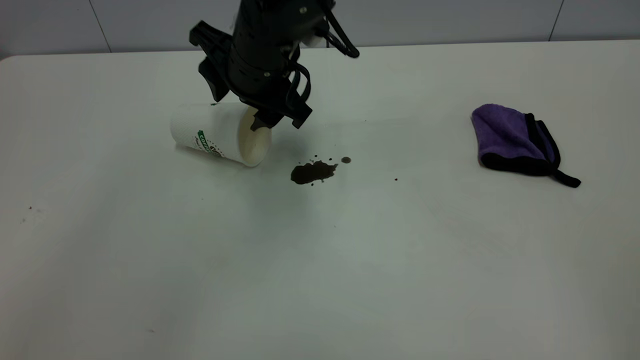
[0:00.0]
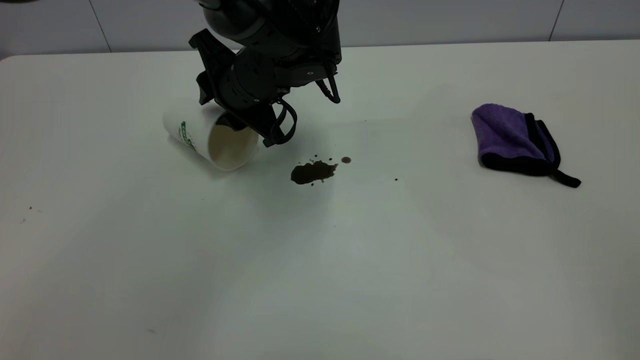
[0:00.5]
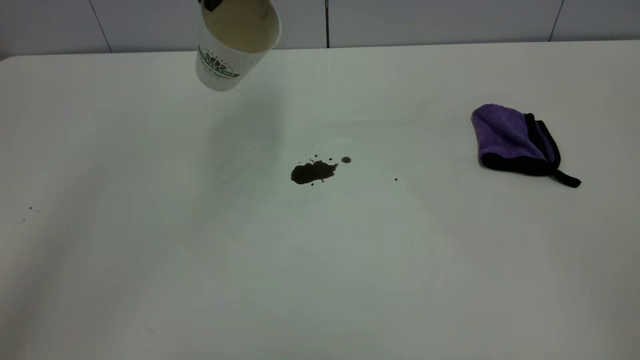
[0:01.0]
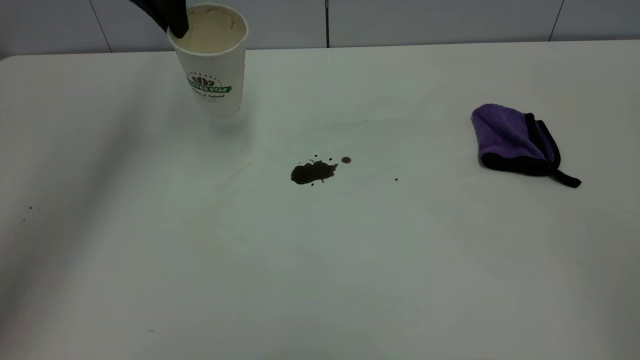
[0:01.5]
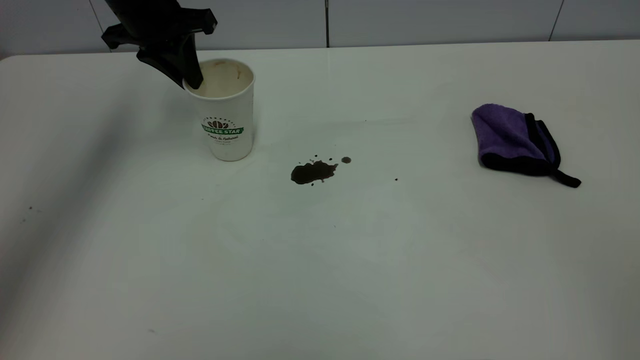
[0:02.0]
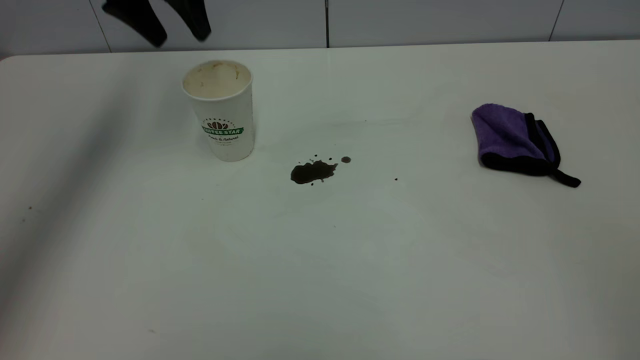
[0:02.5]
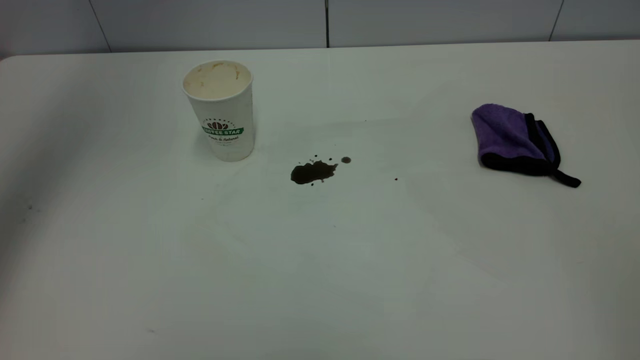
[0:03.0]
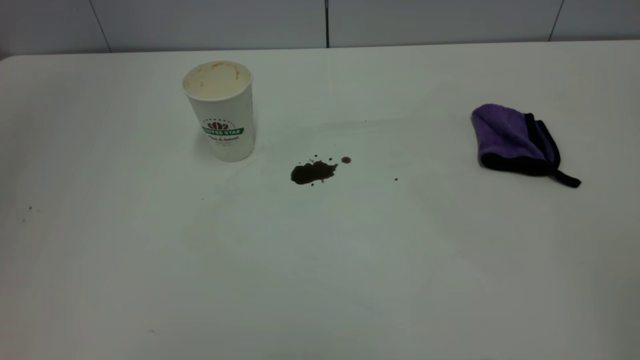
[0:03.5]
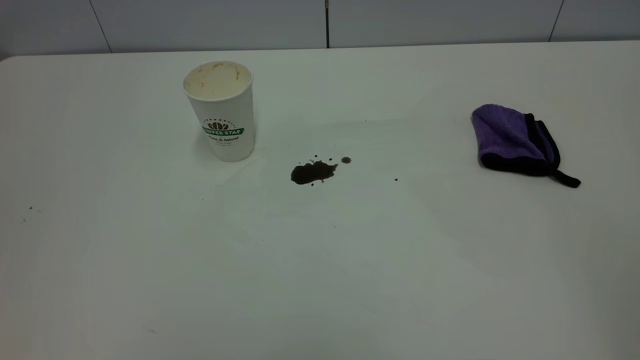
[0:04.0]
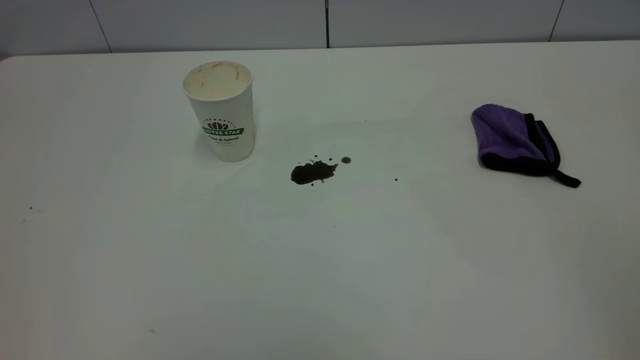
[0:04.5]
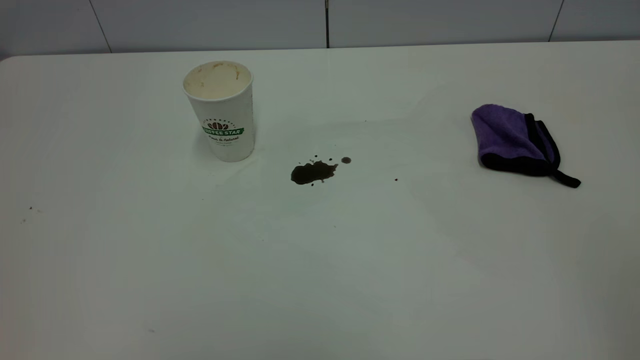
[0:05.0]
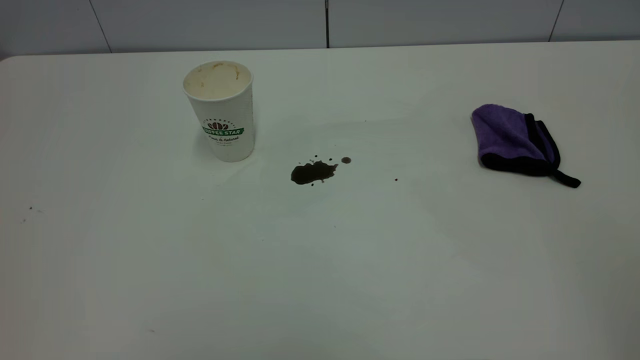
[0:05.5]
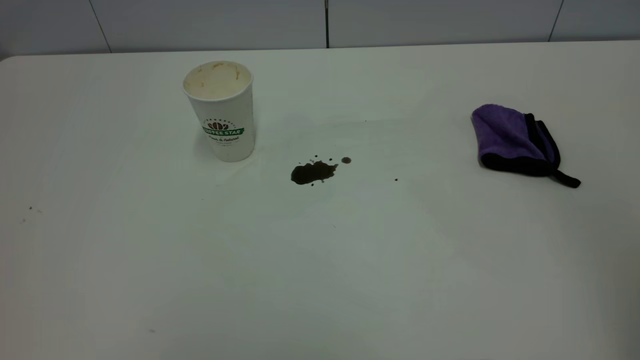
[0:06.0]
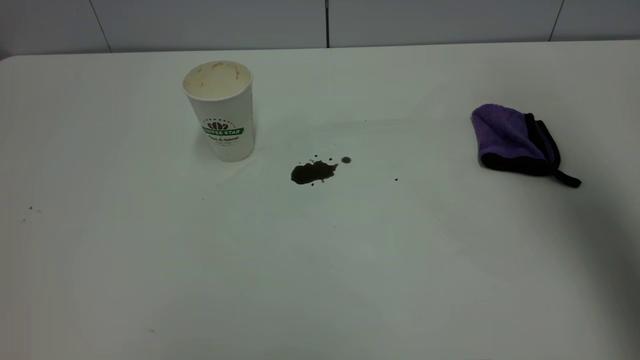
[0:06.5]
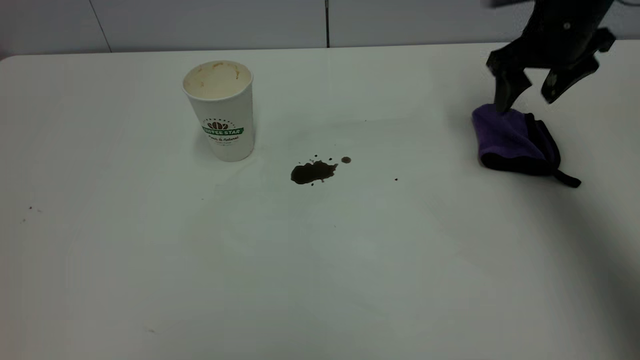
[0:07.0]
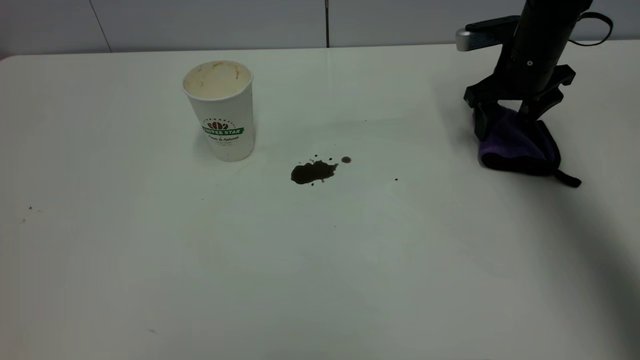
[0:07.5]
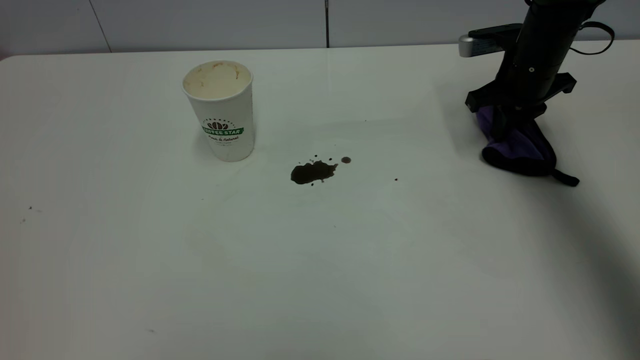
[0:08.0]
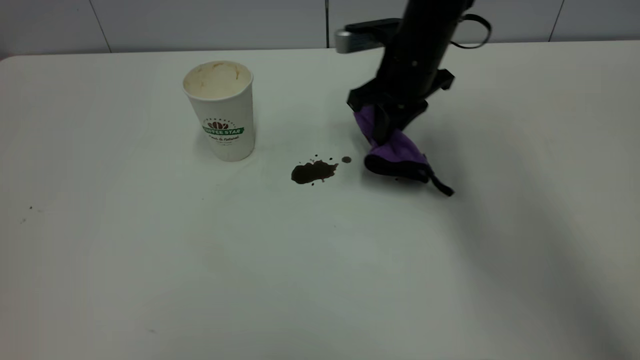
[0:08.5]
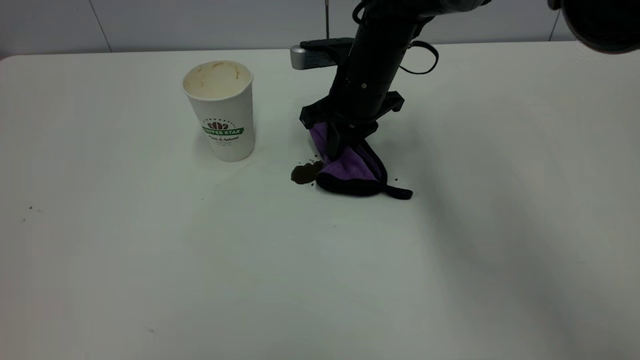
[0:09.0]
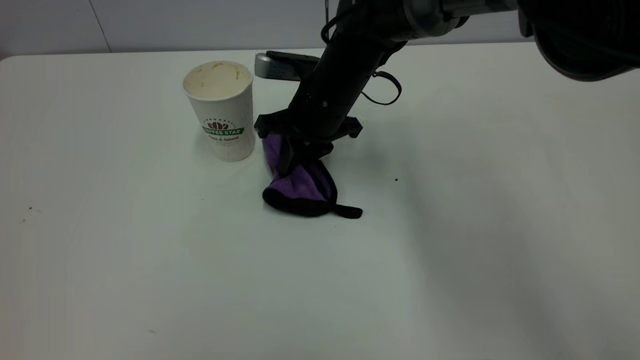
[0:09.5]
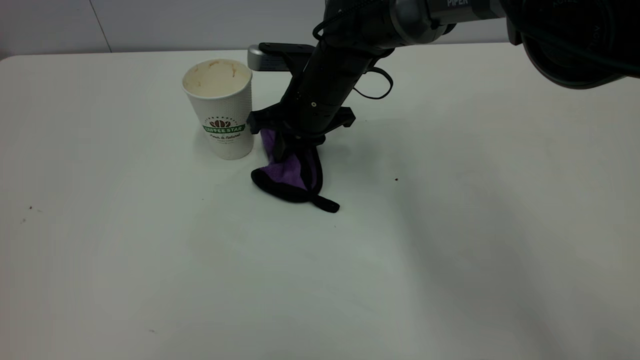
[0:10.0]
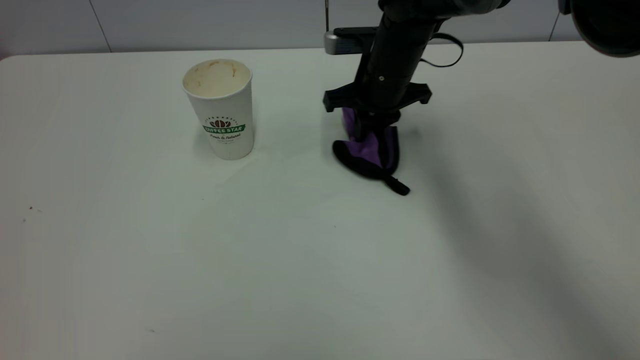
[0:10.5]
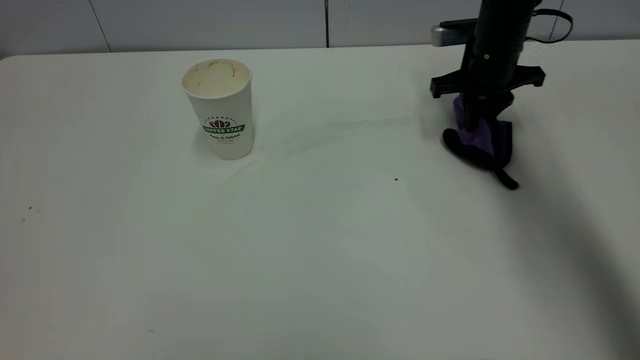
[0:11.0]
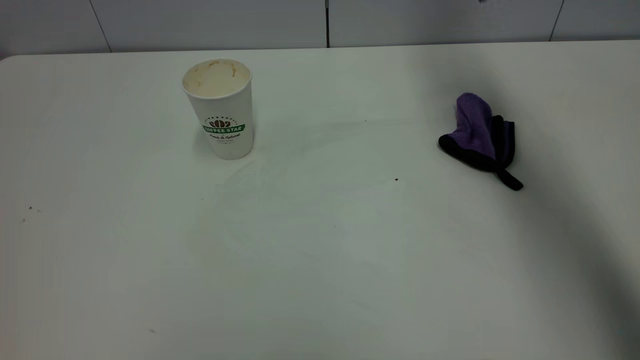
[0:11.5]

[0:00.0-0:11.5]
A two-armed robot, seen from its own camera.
Task of the whole recording: the left gripper pick up the fallen cup and place it upright, the right gripper grasp the purple rag and wipe the coffee stain on the table, the right gripper put the purple rag back in its original position.
Step, 0:00.0 to 0:02.0: Stand the paper cup upright.
Step, 0:02.5 to 0:11.0: Wipe the stains off the table with a rag.
0:00.0 to 0:02.0: The left gripper is displaced to the left and forward by about 20 cm, reaches approximately 15 cm upward, then returns, and closes up.
0:02.0 to 0:04.0: The left gripper is displaced backward and upward by roughly 60 cm, and opens, then closes again.
0:06.0 to 0:07.5: The right gripper travels forward and downward by roughly 50 cm.
0:07.5 to 0:09.5: The right gripper shifts roughly 25 cm to the left, and closes up.
0:09.5 to 0:11.5: The right gripper heads upward and to the right, covering some 30 cm, and opens up.

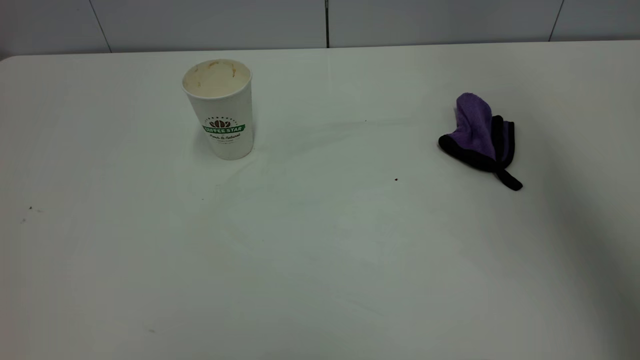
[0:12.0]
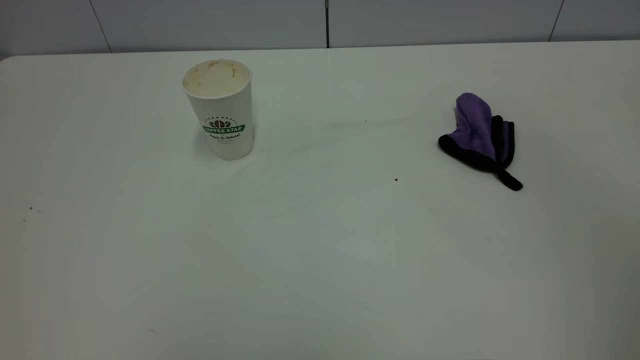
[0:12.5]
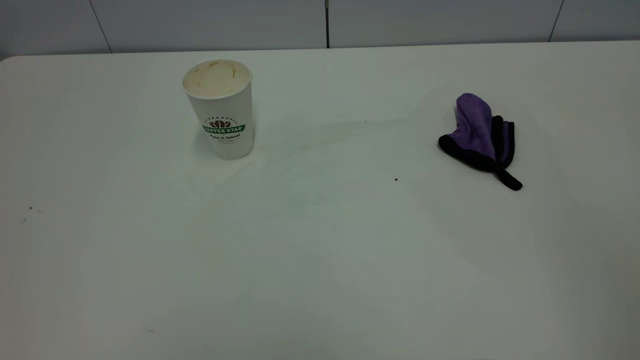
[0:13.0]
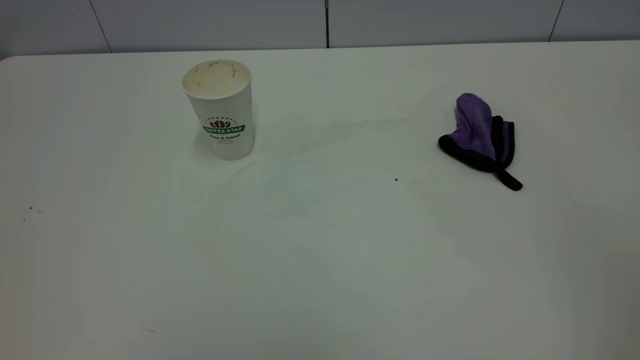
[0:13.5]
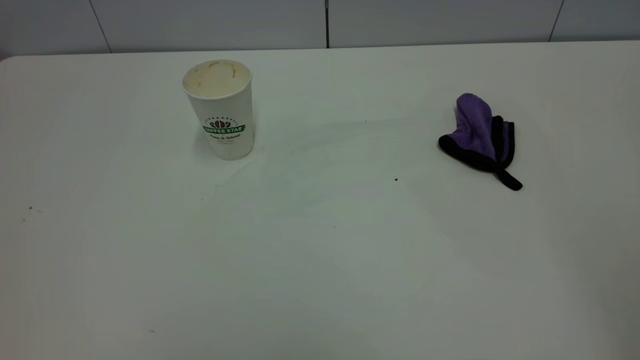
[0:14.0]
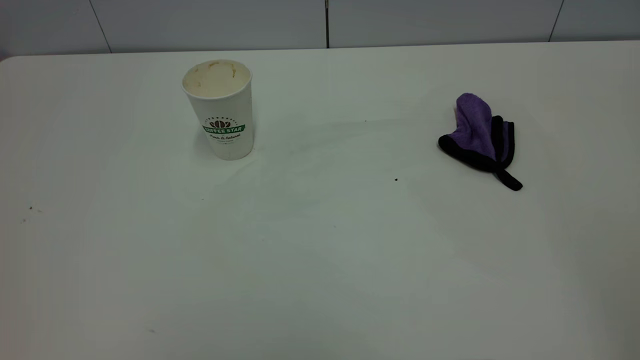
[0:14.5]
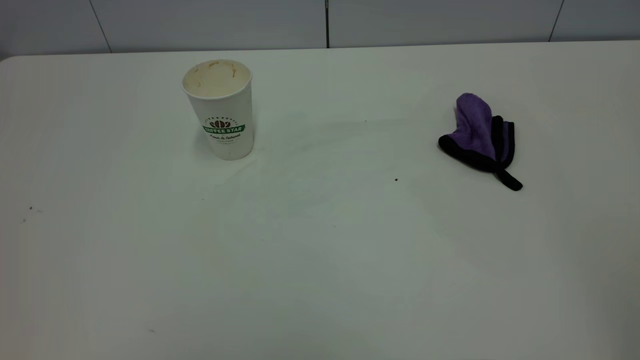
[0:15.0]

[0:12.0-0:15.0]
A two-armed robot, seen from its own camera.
Task of the whole recording: the left gripper pick up the fallen cup and place it upright, the right gripper grasp the purple rag and wipe the coffee stain on the table, the right gripper put the purple rag back in its original position.
0:12.0 to 0:13.5: The right gripper moves backward and downward, some 30 cm.
